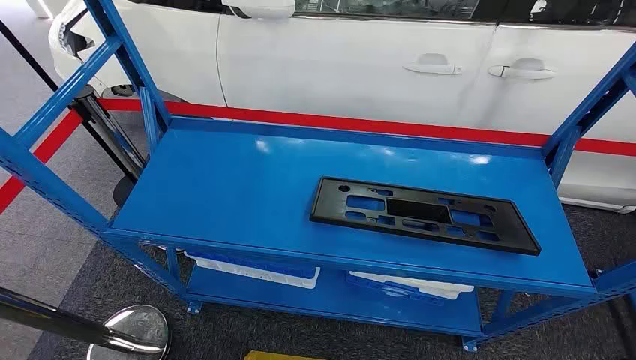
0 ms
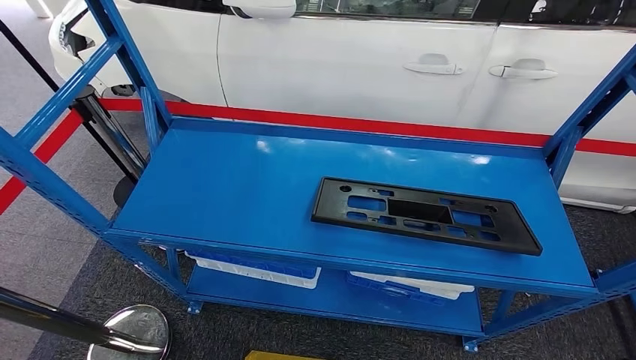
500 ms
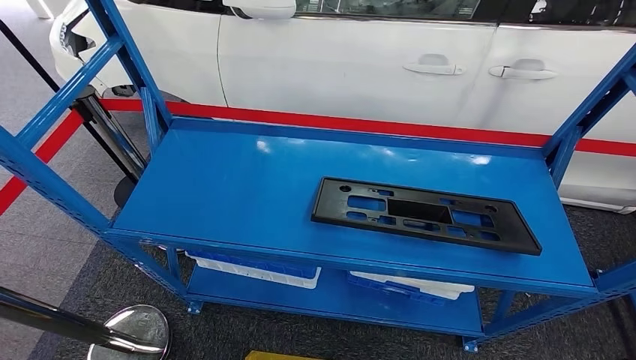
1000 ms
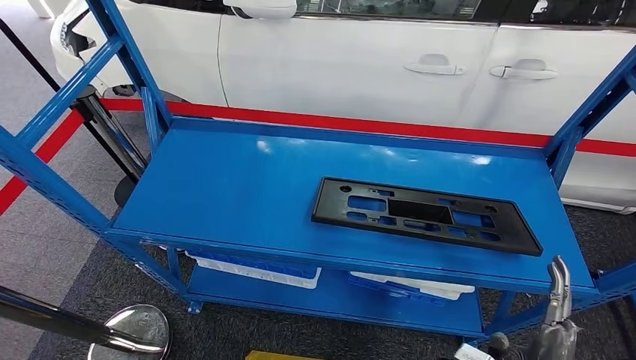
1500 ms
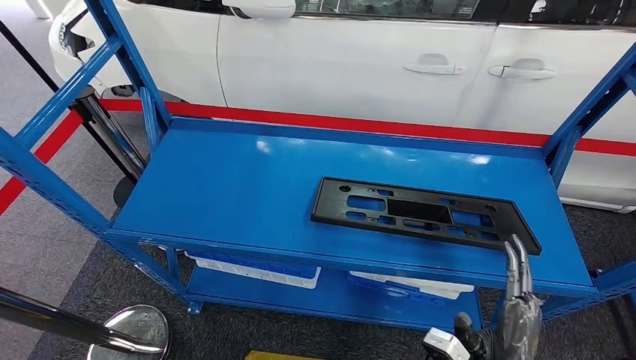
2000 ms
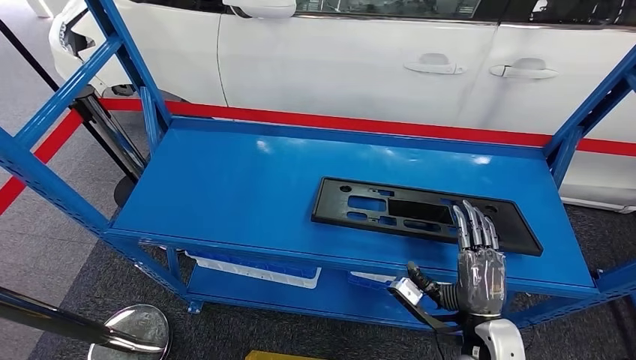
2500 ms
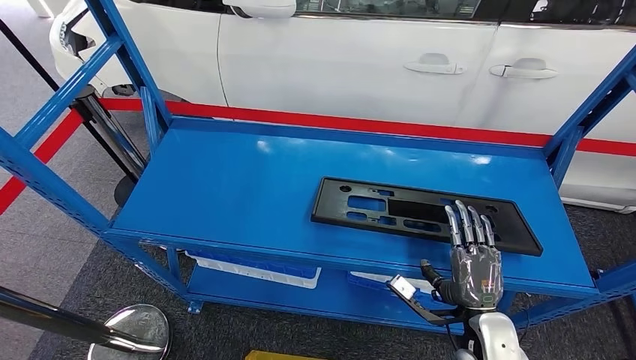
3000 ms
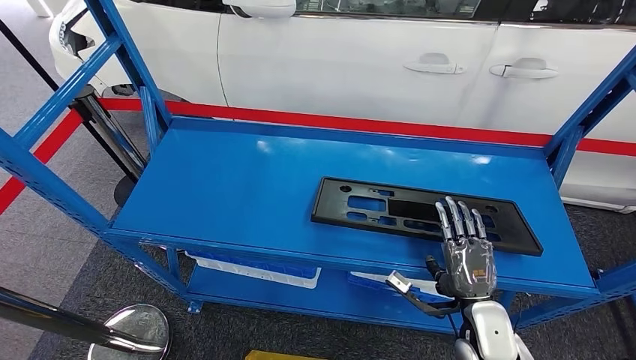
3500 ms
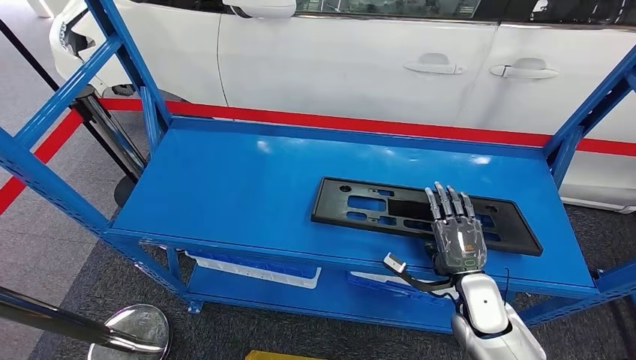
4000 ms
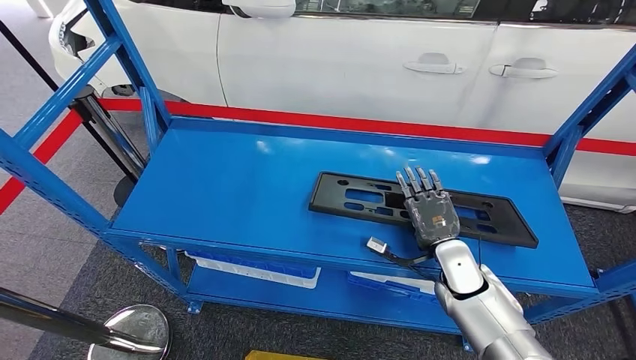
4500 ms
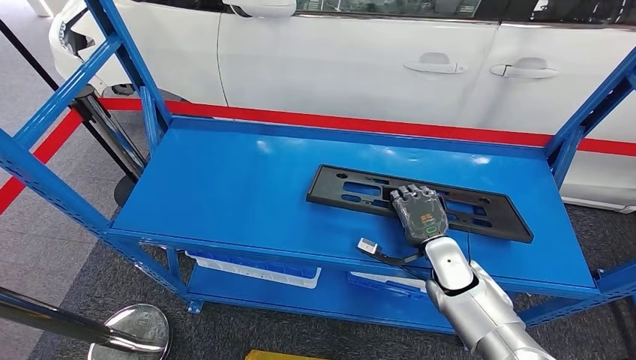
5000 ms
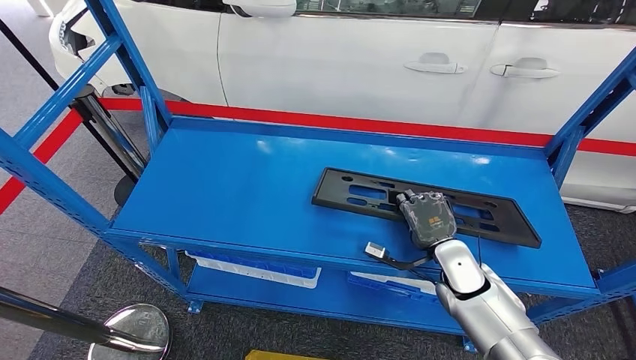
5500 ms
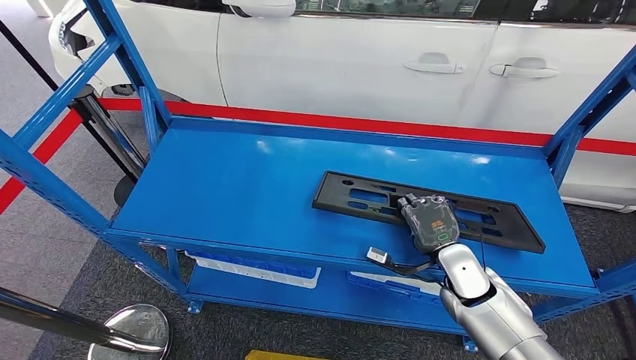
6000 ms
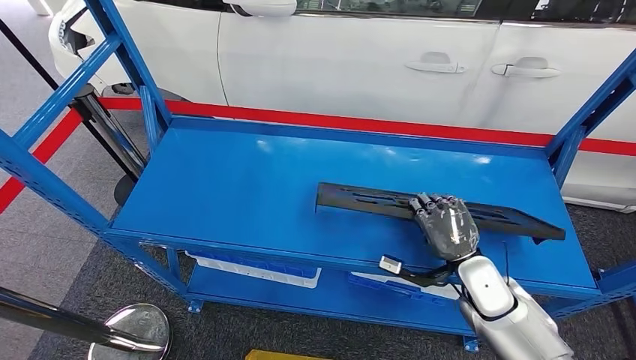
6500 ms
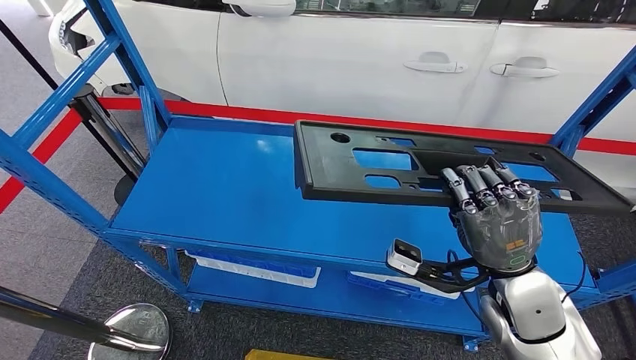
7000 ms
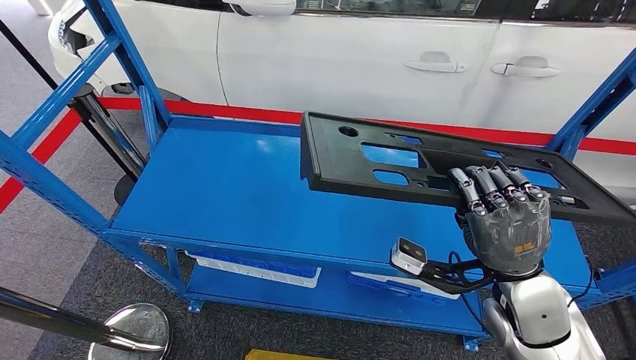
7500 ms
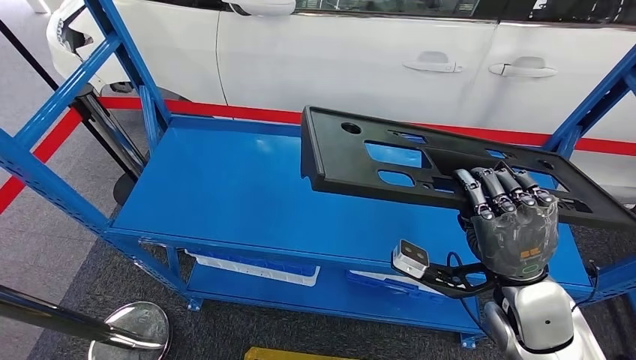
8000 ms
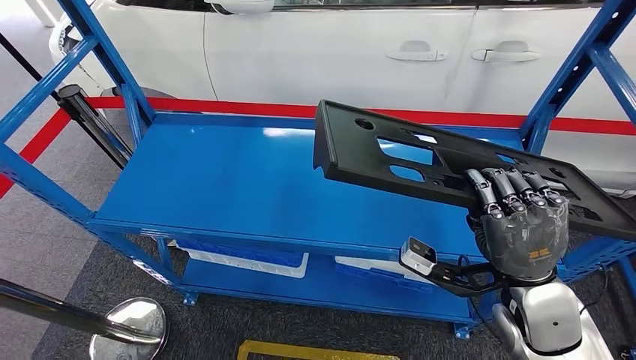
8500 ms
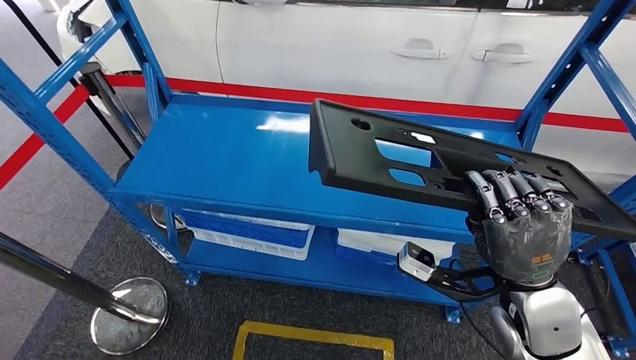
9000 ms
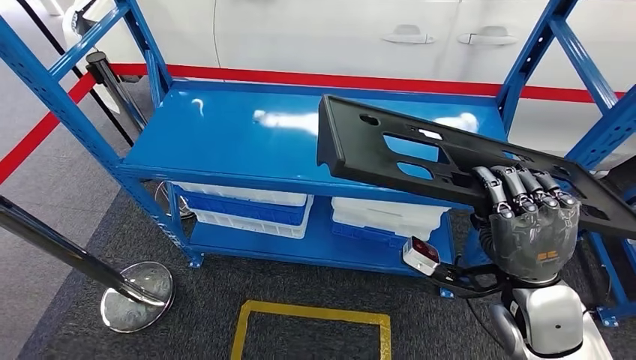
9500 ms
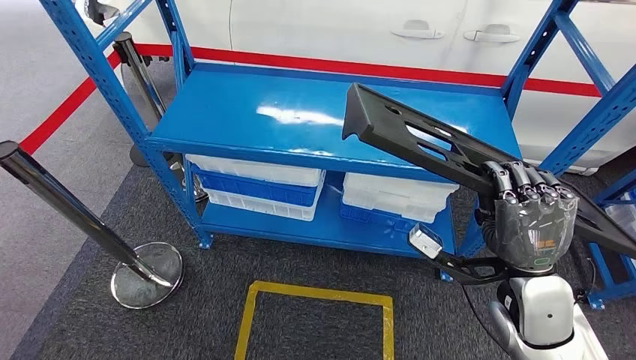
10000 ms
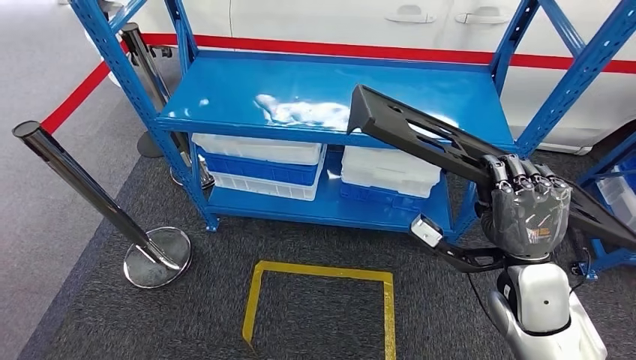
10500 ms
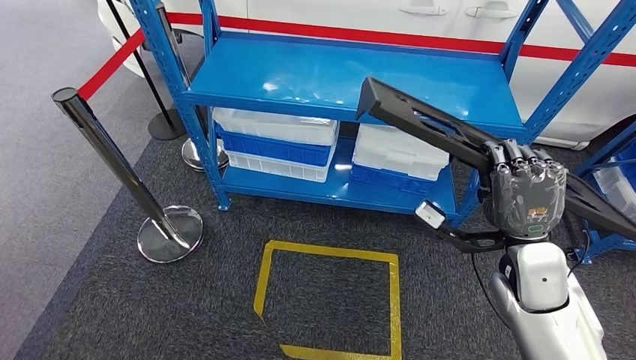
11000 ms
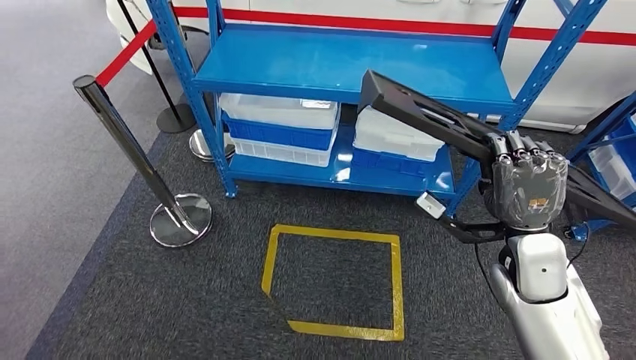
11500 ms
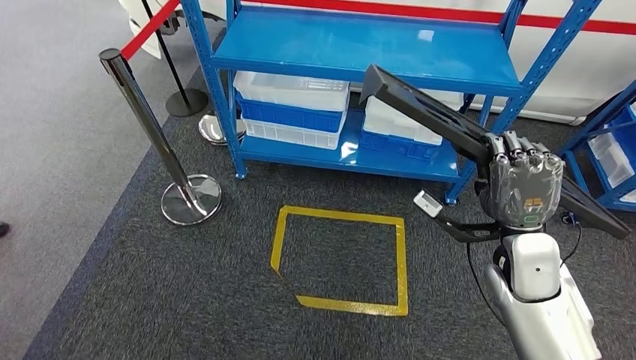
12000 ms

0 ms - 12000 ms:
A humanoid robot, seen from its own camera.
Step, 0 ms - 11500 ms: Pick up the large material from the shelf.
2000 ms - 4000 ms: The right hand is displaced forward by approximately 15 cm.
4000 ms - 6000 ms: The right hand shifts by about 5 cm.
6000 ms - 8000 ms: The right hand moves upward and backward, about 15 cm.

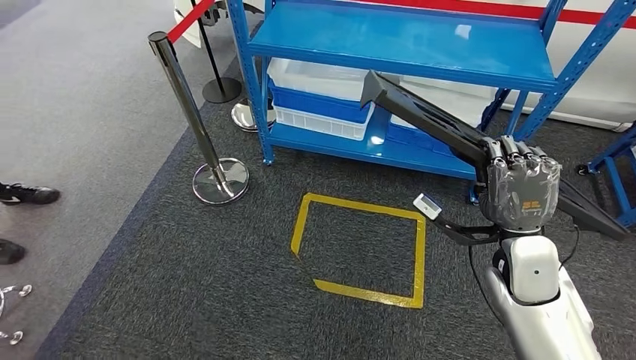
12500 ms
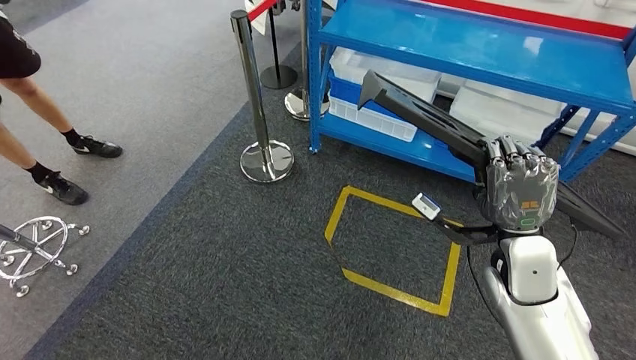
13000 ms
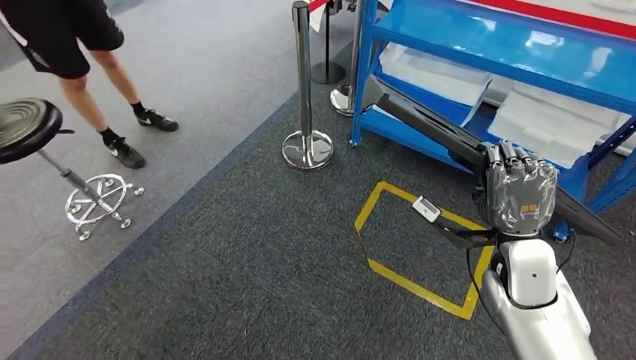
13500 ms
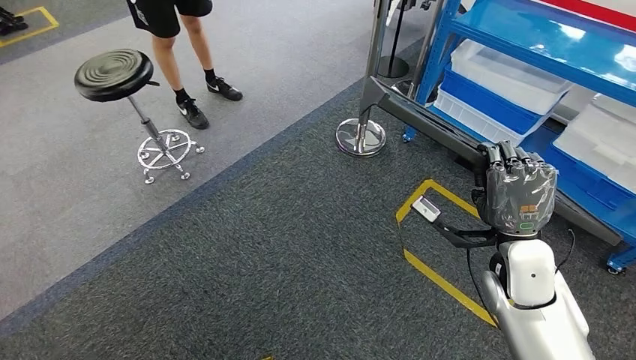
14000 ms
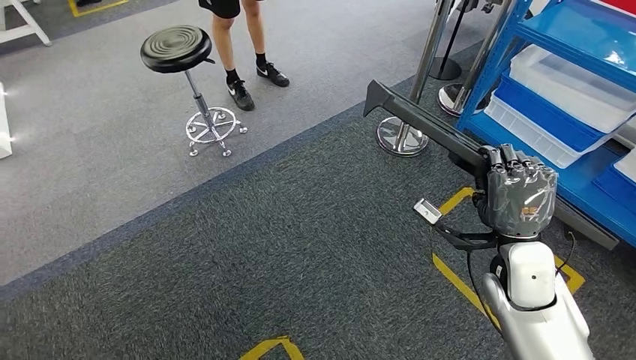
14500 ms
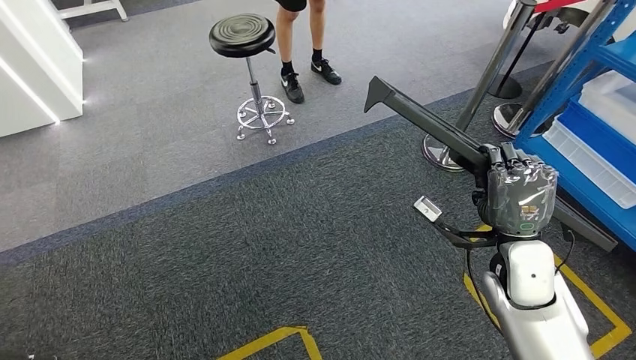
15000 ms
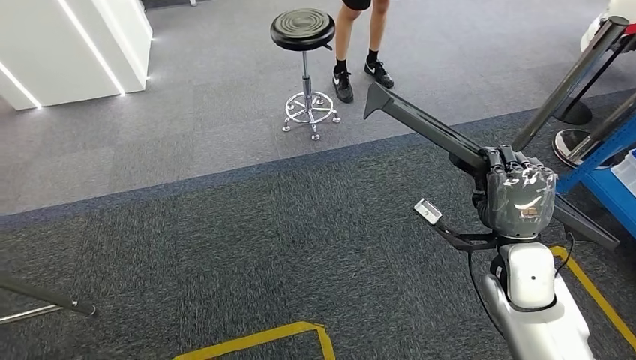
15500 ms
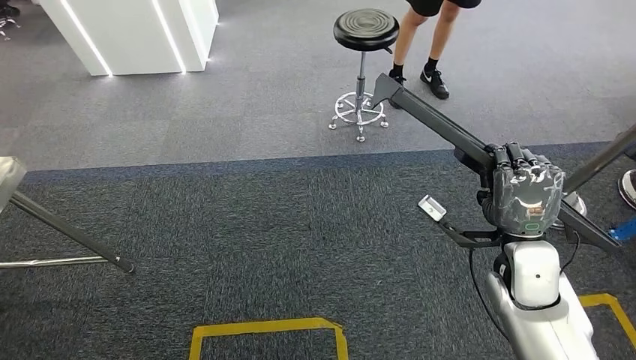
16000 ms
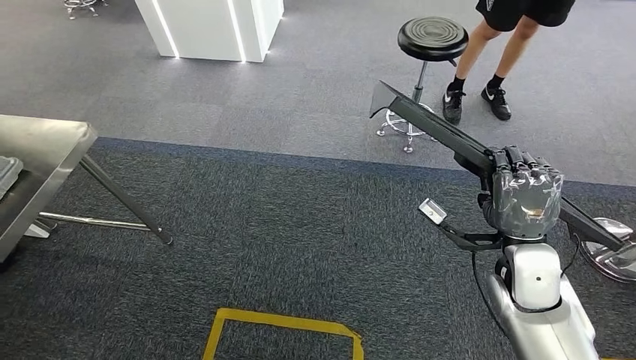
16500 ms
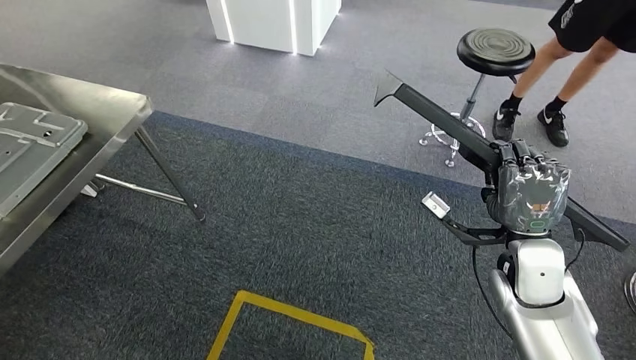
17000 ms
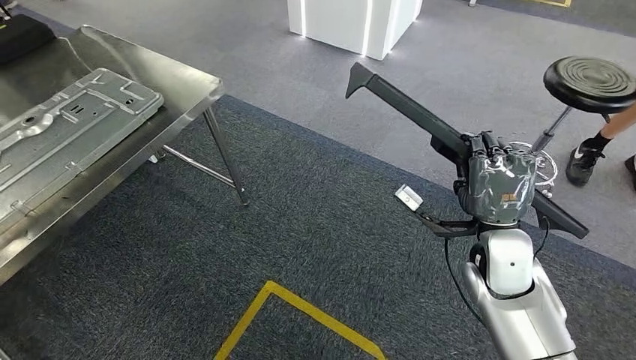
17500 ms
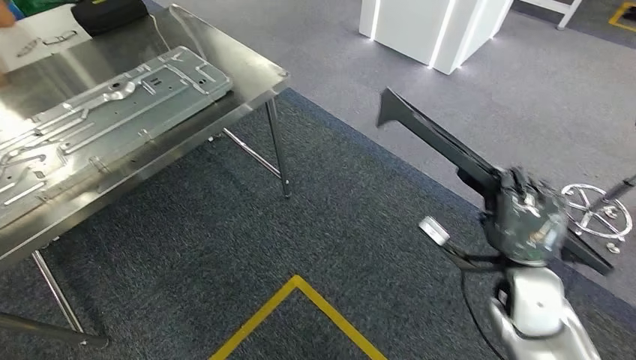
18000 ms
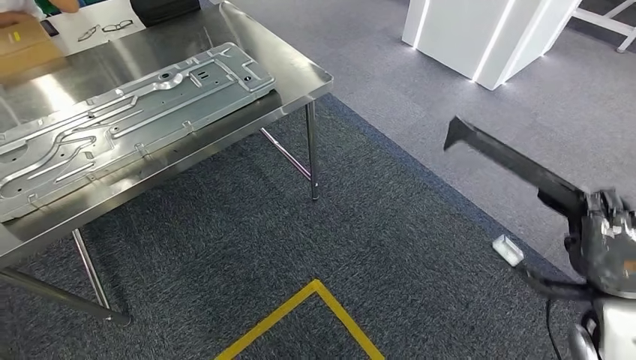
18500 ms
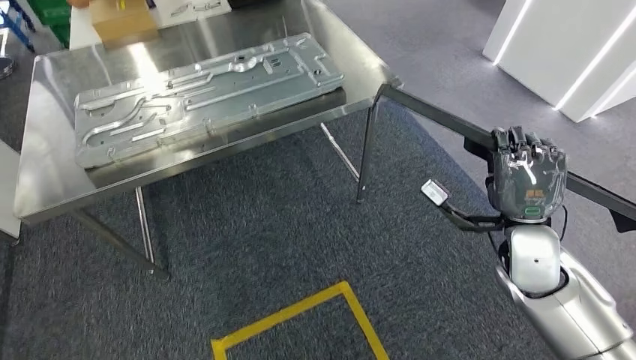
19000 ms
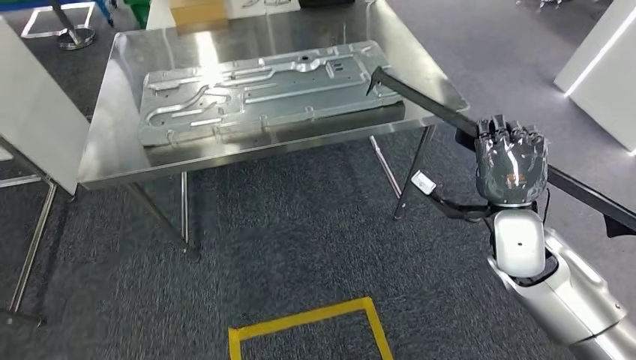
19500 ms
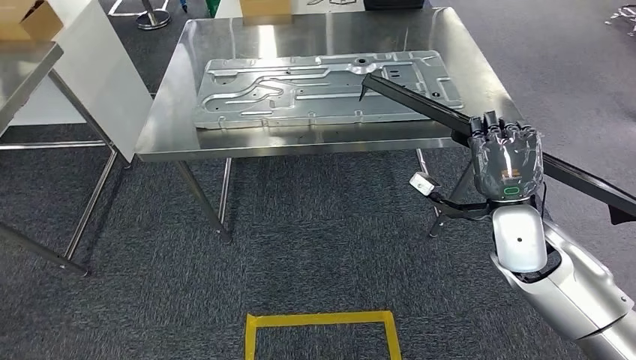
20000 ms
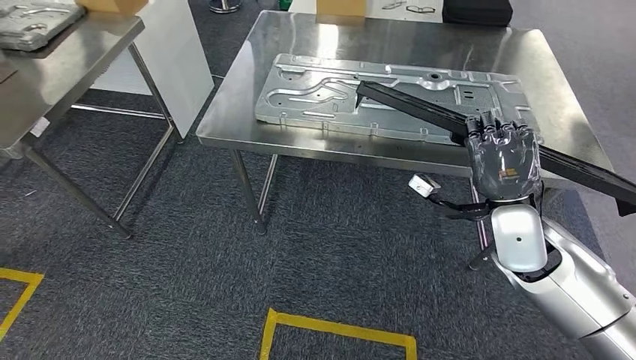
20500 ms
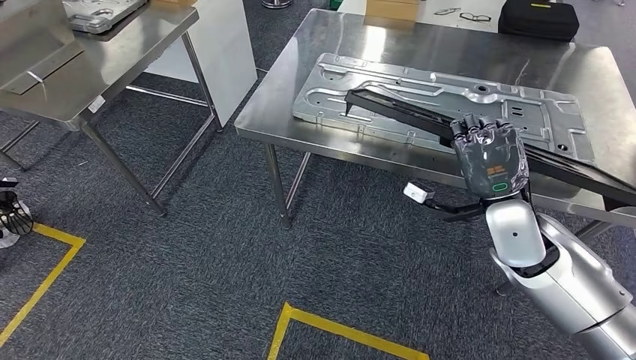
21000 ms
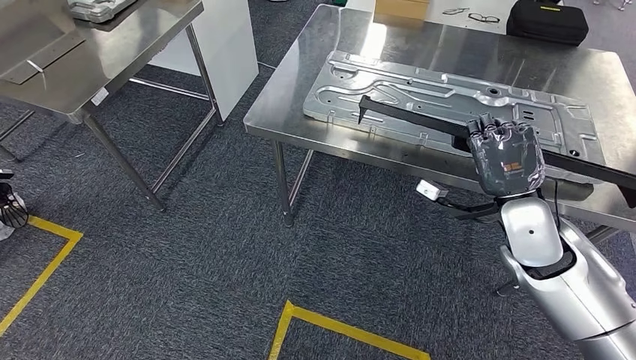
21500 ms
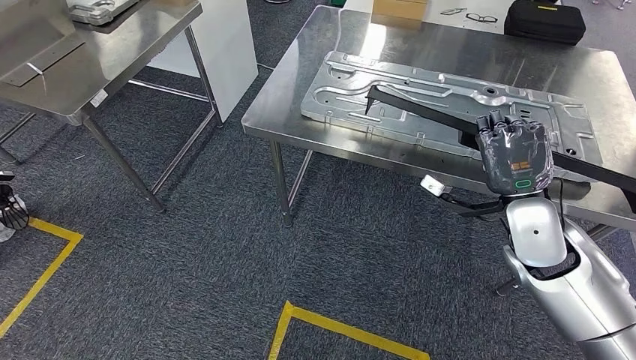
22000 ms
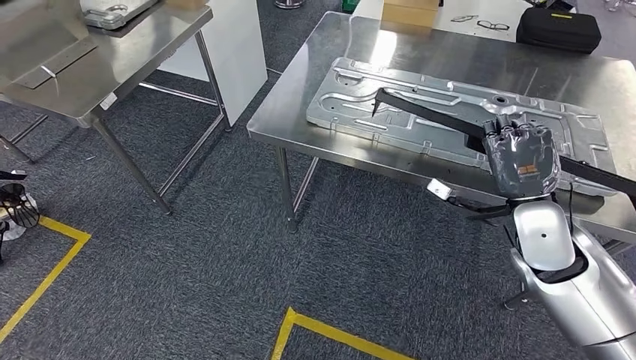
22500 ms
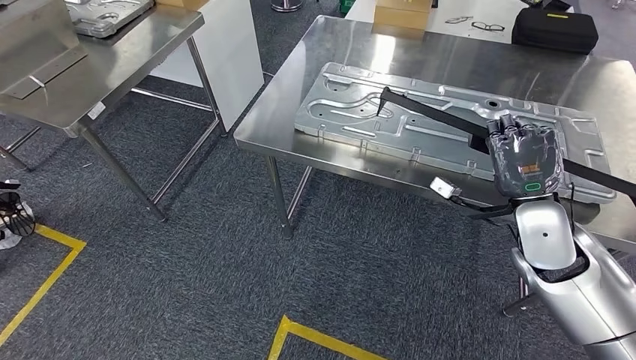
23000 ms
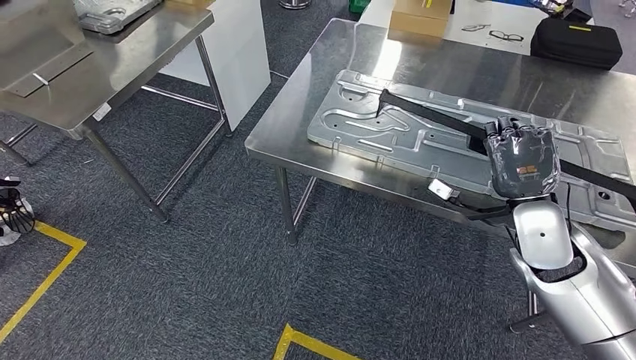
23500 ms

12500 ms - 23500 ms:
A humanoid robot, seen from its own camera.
Step, 12500 ms - 23000 ms: Move the large material to the workbench.
